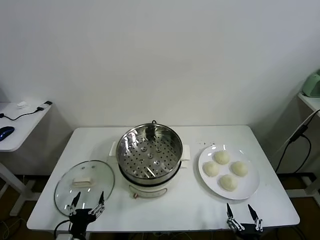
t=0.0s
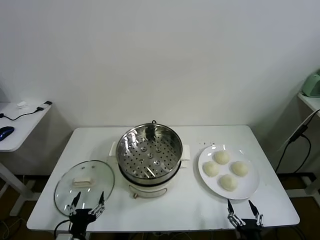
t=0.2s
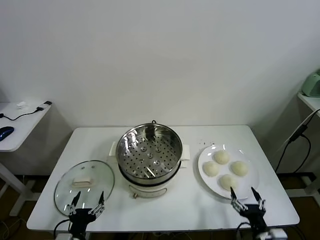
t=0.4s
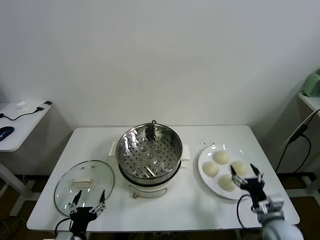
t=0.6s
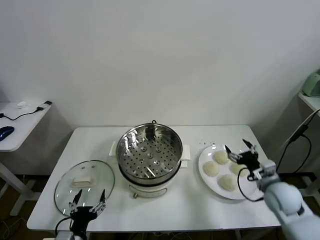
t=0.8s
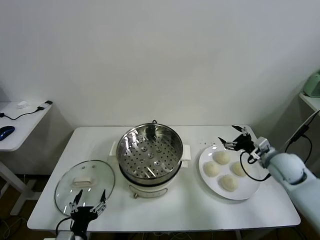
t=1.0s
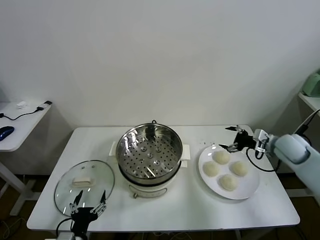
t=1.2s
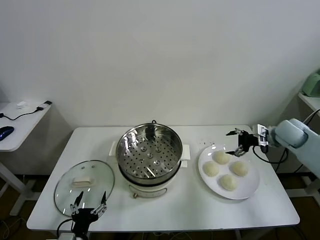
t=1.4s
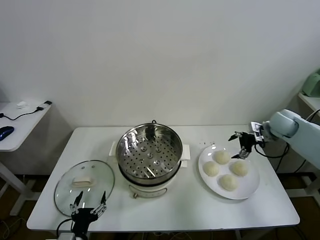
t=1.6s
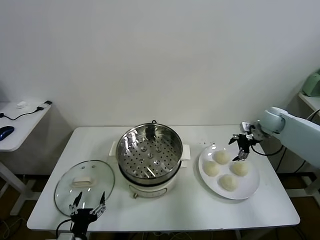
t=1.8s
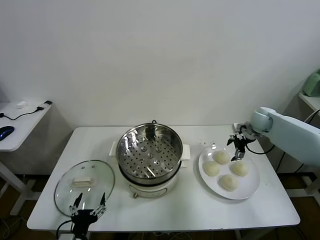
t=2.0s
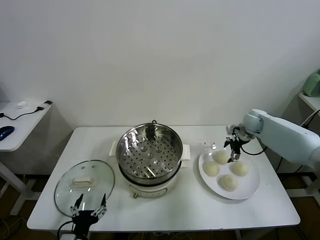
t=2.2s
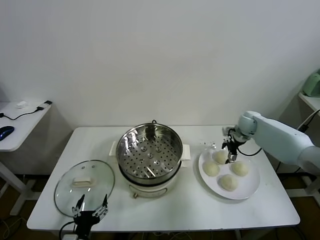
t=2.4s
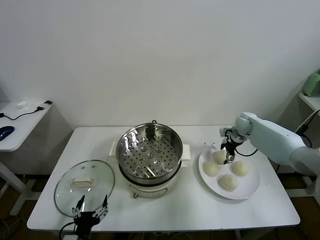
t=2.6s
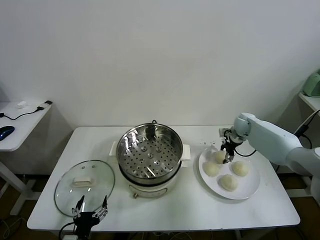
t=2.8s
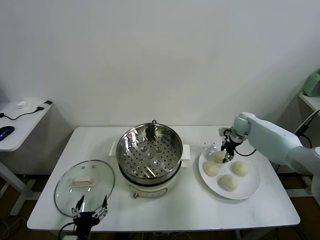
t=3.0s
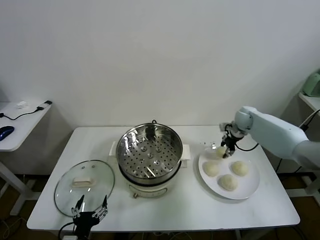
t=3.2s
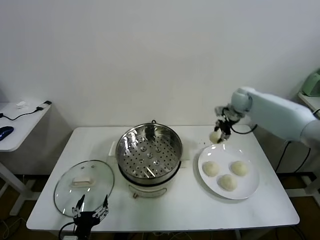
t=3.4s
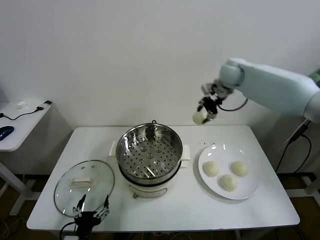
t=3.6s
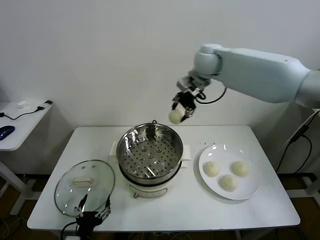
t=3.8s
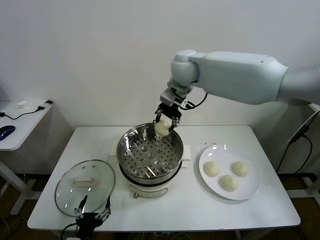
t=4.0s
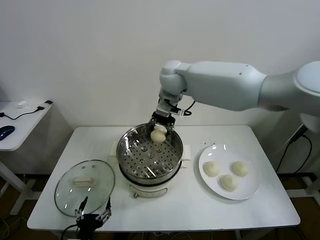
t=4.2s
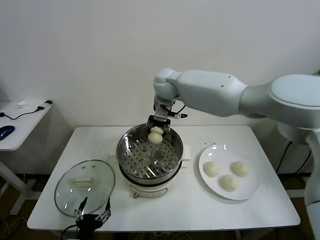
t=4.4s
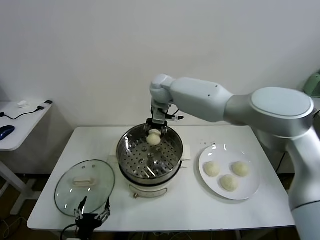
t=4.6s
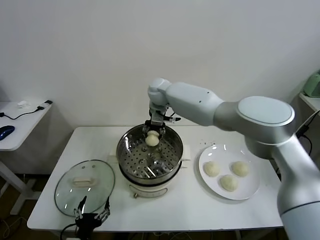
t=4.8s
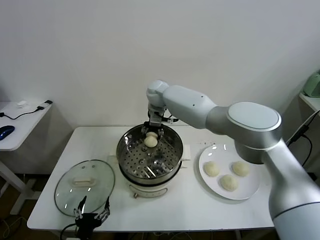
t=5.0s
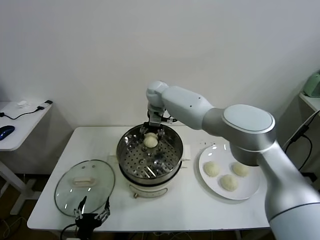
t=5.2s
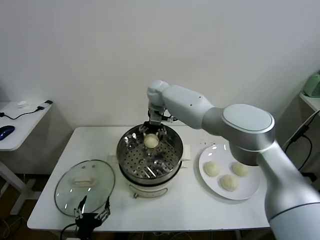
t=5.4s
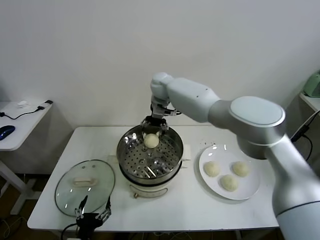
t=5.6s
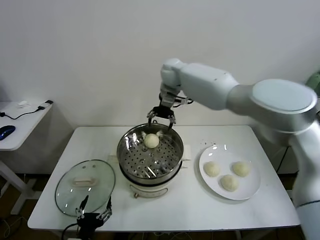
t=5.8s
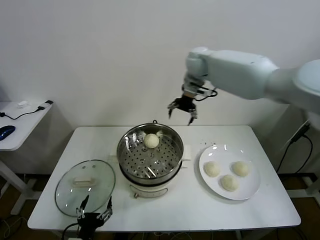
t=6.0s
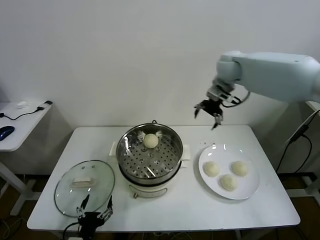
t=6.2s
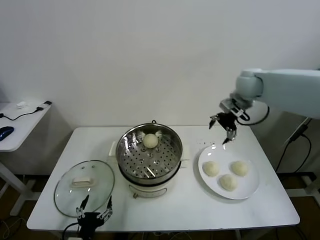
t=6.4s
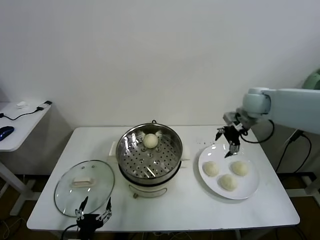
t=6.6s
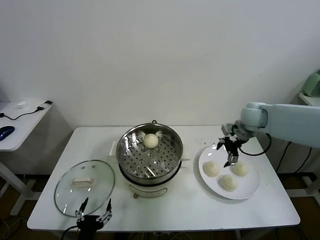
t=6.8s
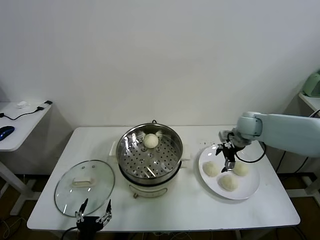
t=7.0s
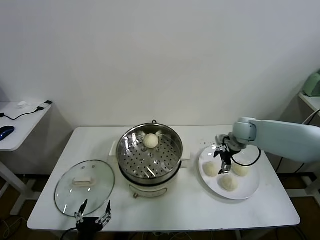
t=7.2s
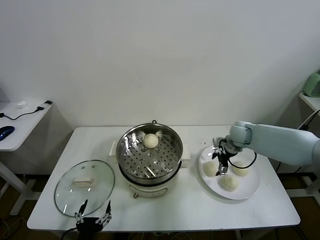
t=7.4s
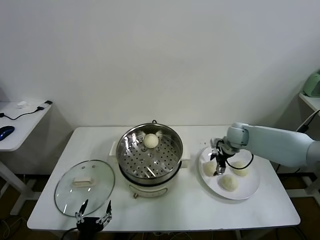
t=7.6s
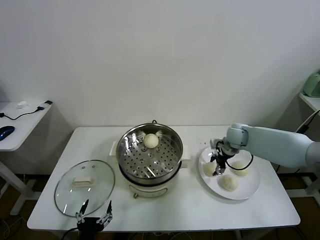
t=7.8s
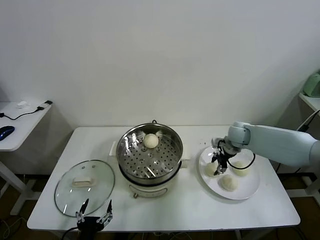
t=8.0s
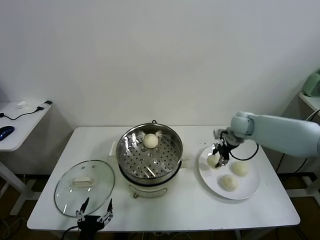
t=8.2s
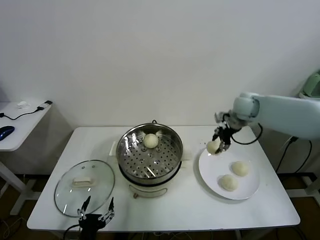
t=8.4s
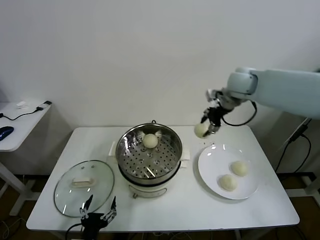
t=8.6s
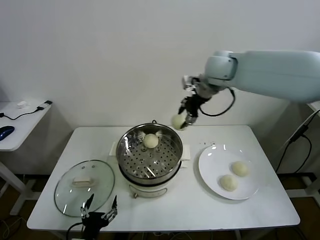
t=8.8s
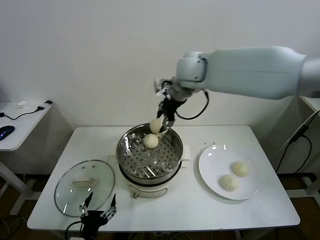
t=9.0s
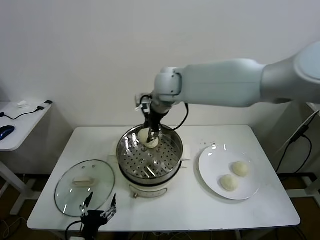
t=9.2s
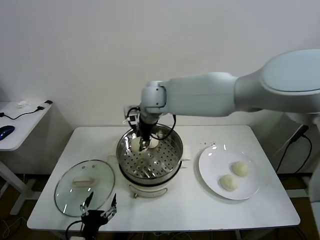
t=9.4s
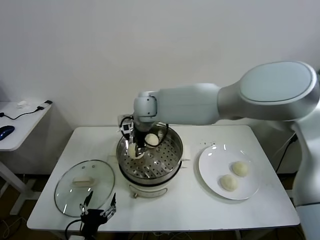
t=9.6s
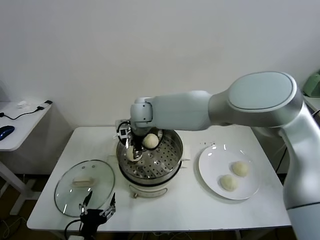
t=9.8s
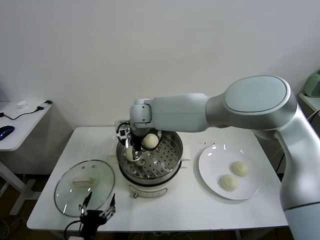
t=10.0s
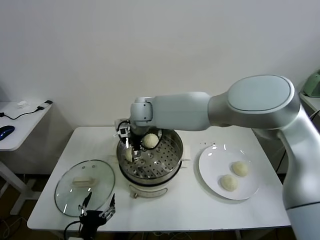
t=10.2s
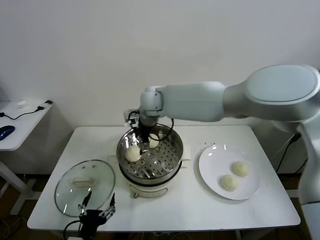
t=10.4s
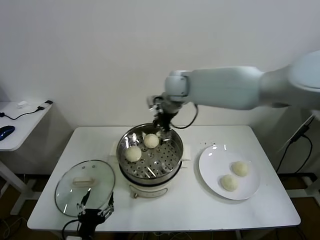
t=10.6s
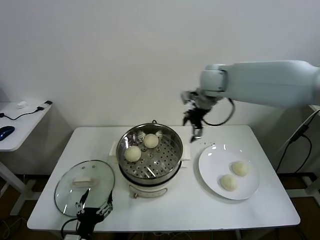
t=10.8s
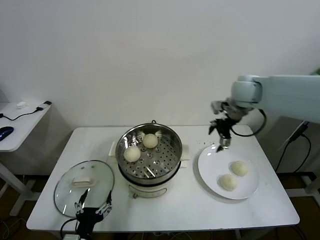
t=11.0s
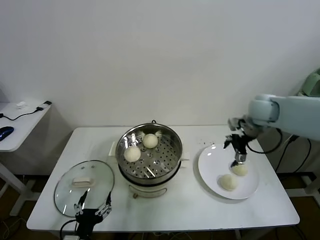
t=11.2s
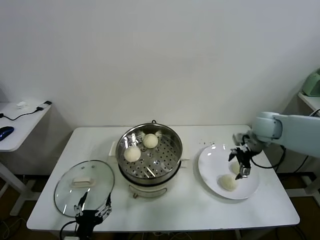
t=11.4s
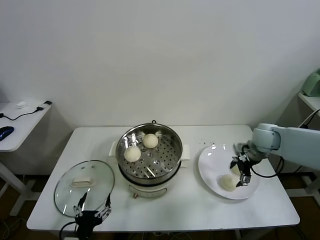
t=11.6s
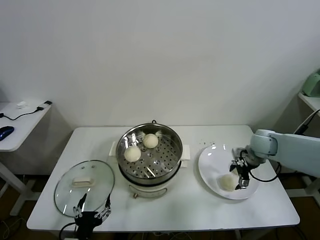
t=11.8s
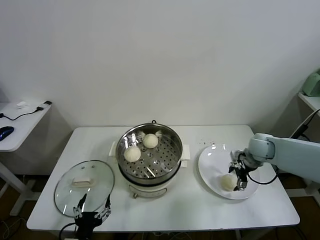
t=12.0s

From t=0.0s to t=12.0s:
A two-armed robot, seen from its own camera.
Task of the whole recording: take steamed baozi put them in steamer.
Step, from t=0.0s to t=2.8s: Grasp the baozi in the plate with right gripper.
Step, from t=3.0s to t=5.4s: Place the baozi on the steamer with right gripper.
Step, from t=5.6s to t=7.8s: Grasp the baozi in the plate with right gripper.
Step, from t=8.0s to t=10.2s: Place the baozi on the steamer with right gripper.
From t=1.6s to t=3.0s: The right gripper moves forward, to the left and downward, about 10 cm, and closes up.
From t=3.0s to t=4.4s: The right gripper moves to the left and upward, roughly 40 cm.
From t=4.4s to t=6.0s: The right gripper goes approximately 20 cm to the right and upward, and opens up.
From t=6.0s to t=7.6s: The right gripper travels downward and to the right by some 30 cm.
From t=7.6s to t=9.0s: The right gripper moves upward and to the left, approximately 35 cm, and closes.
From t=9.0s to t=10.4s: The right gripper goes approximately 10 cm downward and to the left, and opens.
From t=10.4s to t=12.0s: The right gripper heads to the right and downward, covering some 40 cm.

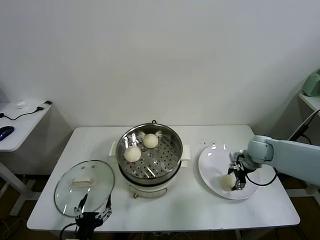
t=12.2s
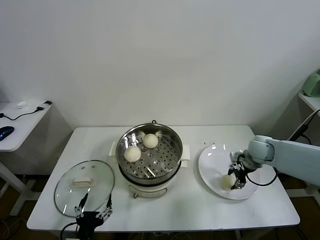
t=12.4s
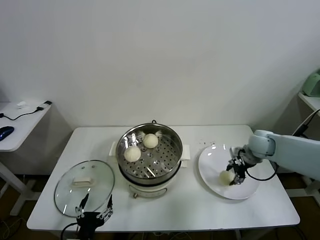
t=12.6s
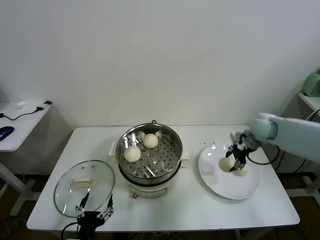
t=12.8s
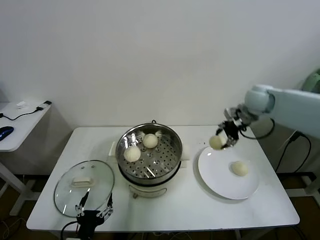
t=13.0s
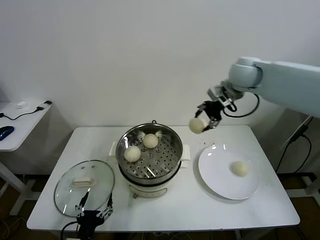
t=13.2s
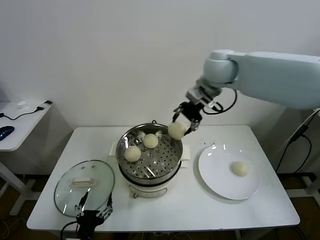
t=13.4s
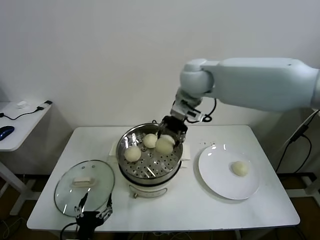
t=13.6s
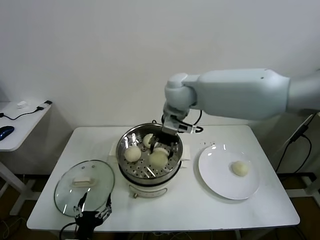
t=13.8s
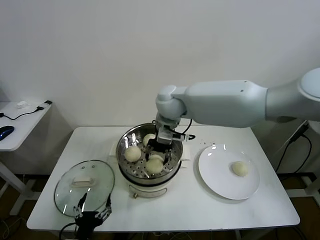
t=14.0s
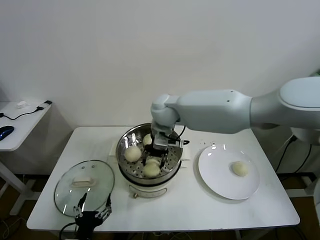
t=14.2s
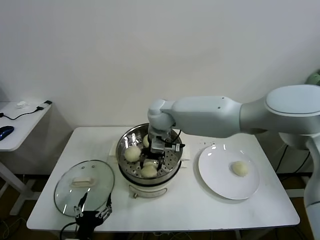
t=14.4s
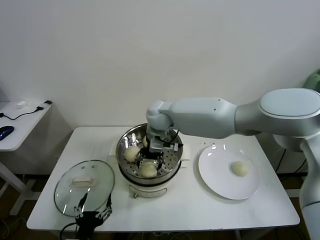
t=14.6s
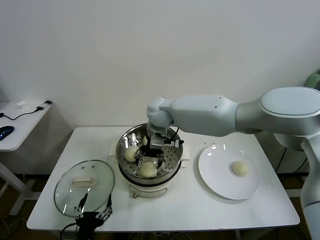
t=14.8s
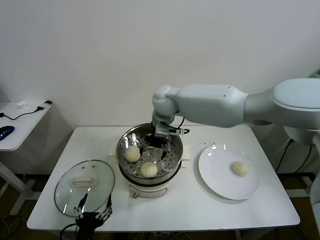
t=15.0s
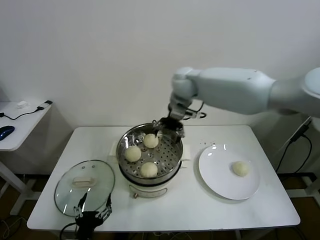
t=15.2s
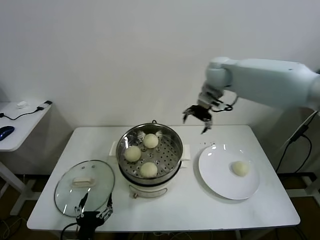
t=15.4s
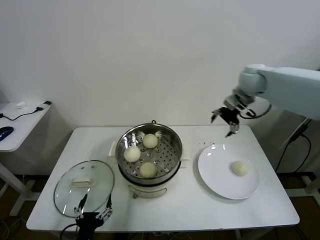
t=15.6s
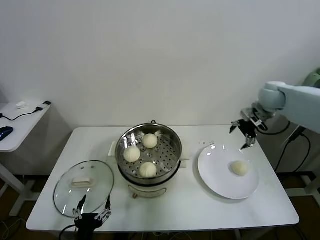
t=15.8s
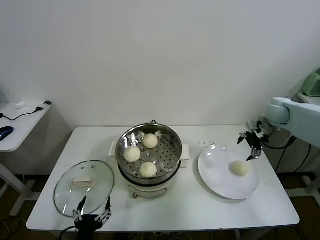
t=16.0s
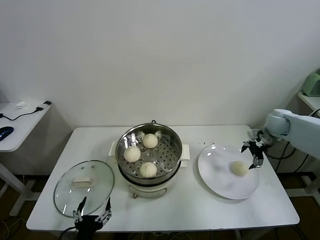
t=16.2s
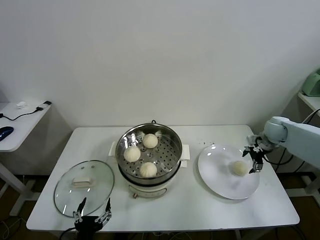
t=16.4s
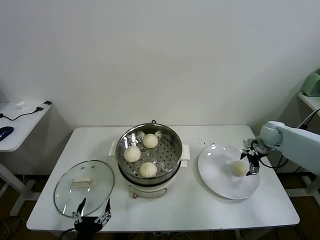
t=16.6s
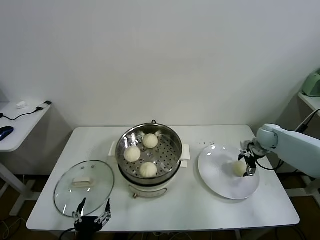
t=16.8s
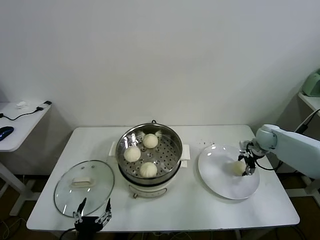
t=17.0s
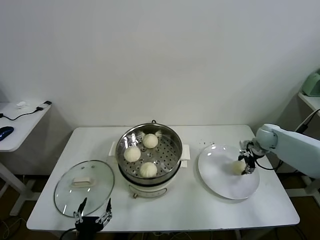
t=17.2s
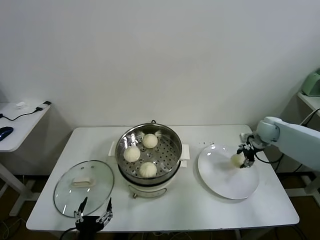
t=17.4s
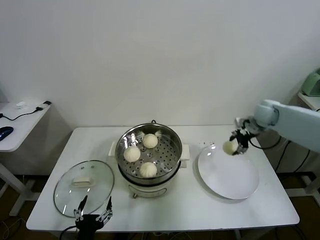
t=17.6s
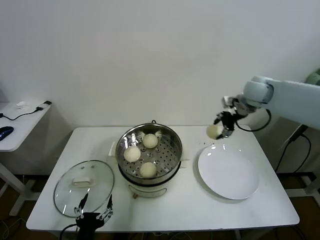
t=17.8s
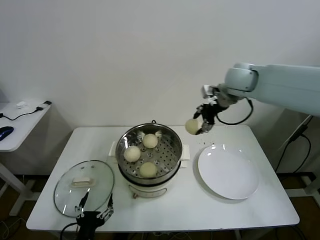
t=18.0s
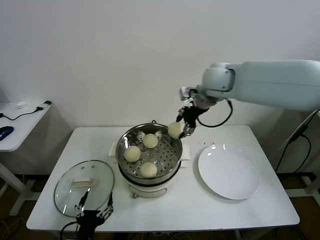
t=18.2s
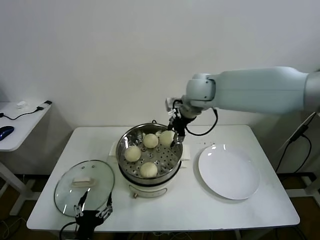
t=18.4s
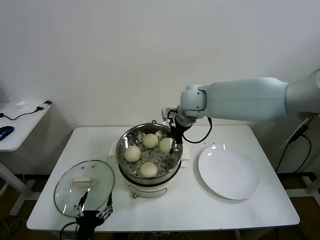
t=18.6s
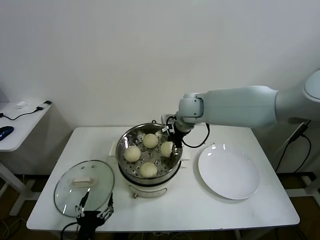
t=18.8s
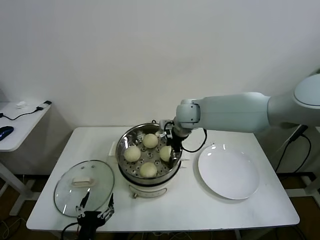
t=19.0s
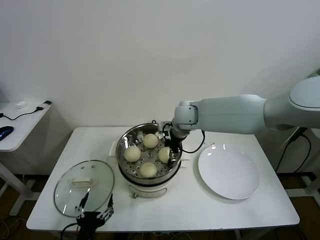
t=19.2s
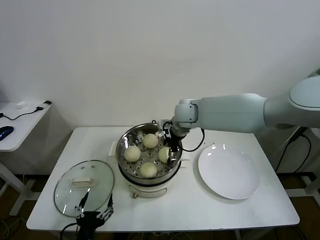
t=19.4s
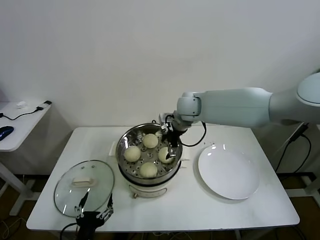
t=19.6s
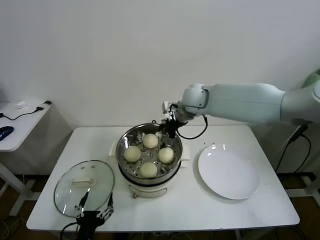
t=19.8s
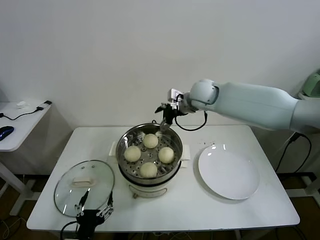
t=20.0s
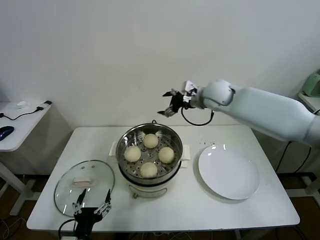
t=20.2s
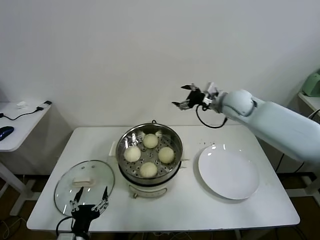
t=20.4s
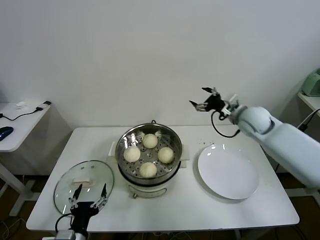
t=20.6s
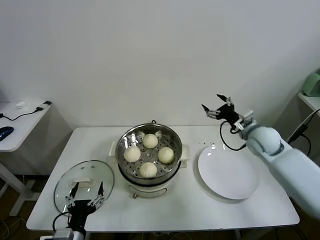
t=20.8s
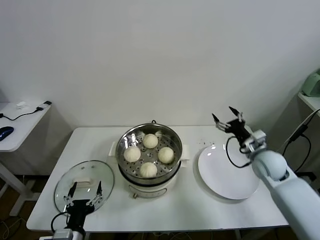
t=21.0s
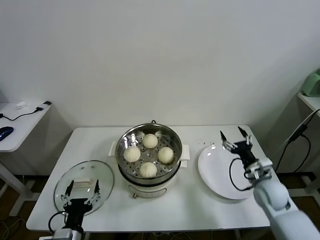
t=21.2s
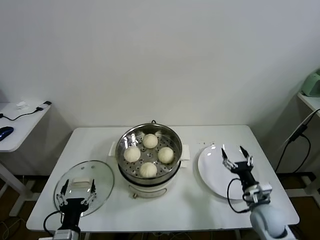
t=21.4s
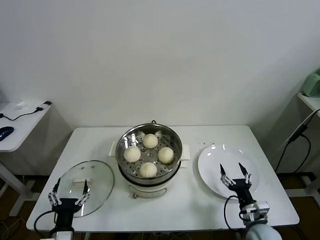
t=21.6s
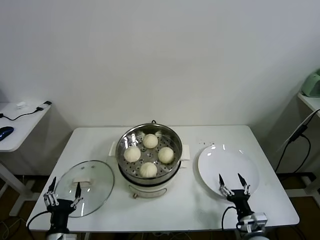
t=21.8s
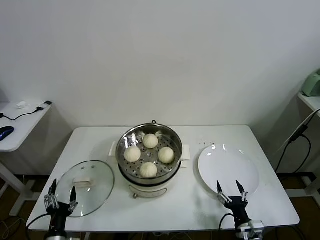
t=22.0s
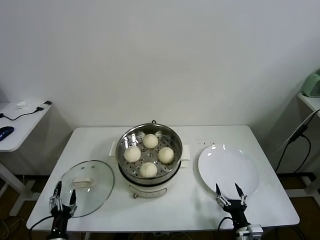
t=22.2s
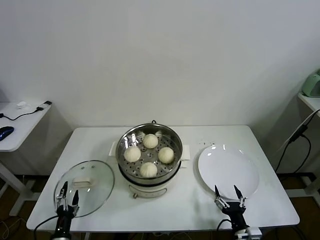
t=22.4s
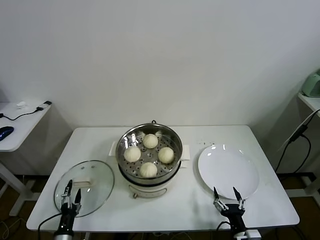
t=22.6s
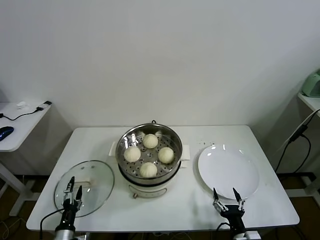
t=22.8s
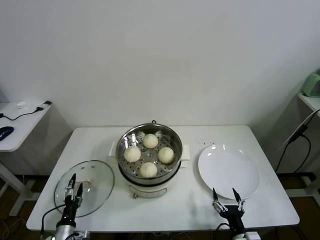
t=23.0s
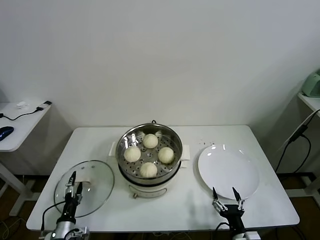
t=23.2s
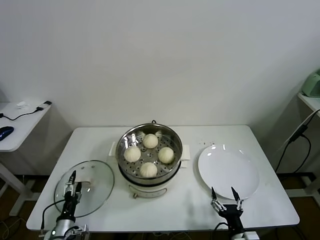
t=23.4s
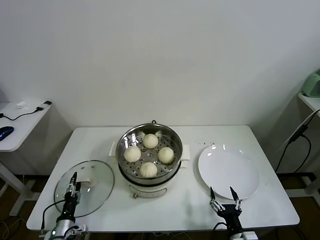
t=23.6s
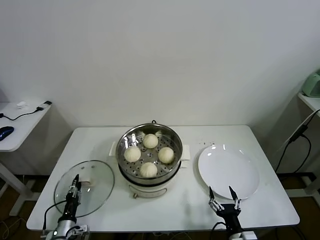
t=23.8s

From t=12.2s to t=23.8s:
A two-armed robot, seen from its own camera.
Task of the whole recording: take steamed baozi put them in steamer.
Step, from t=12.4s to t=14.6s: Place the baozi on the steamer with right gripper.
Step, from t=15.0s to t=17.0s: Grasp the baozi in the plate with right gripper.
Step, from t=17.2s to t=19.4s: Place the baozi on the steamer with right gripper.
From t=12.2s to t=13.6s: The right gripper shifts some 40 cm to the left and upward.
From t=13.6s to t=15.0s: The right gripper heads downward and to the left, covering about 10 cm, and opens.
From t=15.0s to t=16.6s: The right gripper shifts approximately 40 cm to the right and downward.
From t=16.6s to t=18.0s: The right gripper shifts about 30 cm upward and to the left, and closes.
From t=18.0s to t=19.4s: The right gripper is displaced to the left and downward by roughly 20 cm, and opens.
From t=19.4s to t=21.0s: The right gripper travels to the right, downward and backward by some 35 cm.
From t=21.0s to t=22.4s: The right gripper is displaced backward and downward by some 30 cm, while the left gripper shifts roughly 15 cm downward and to the left.
From t=22.4s to t=23.8s: The left gripper moves forward, some 5 cm, and closes its fingers.
